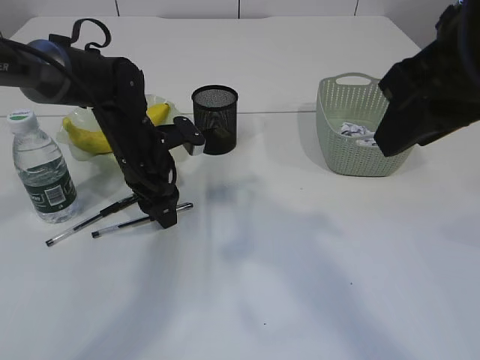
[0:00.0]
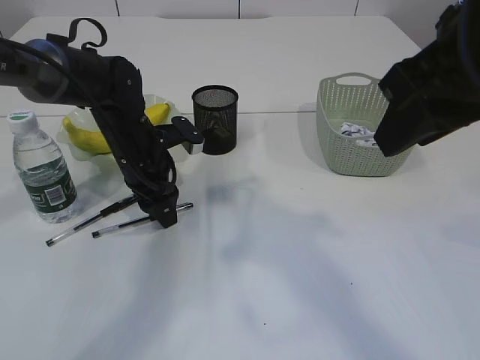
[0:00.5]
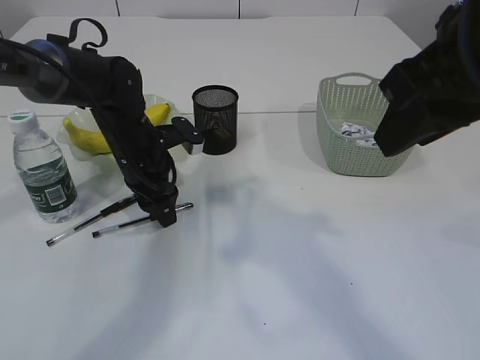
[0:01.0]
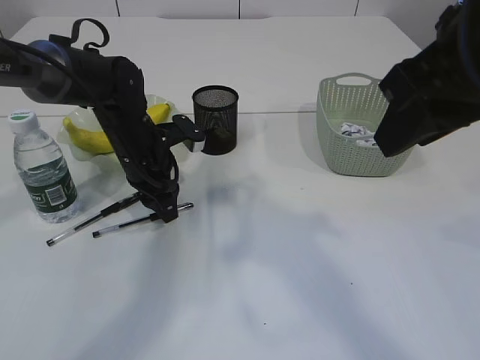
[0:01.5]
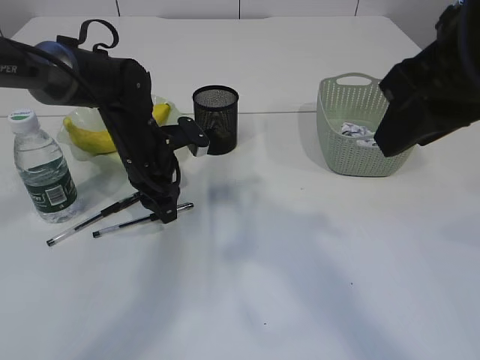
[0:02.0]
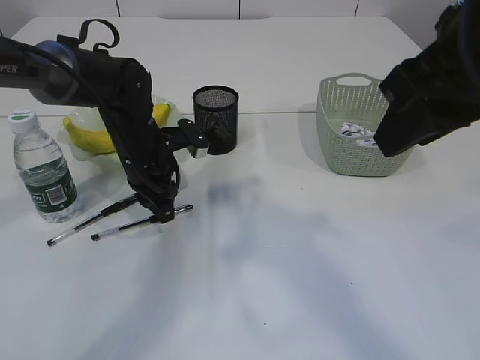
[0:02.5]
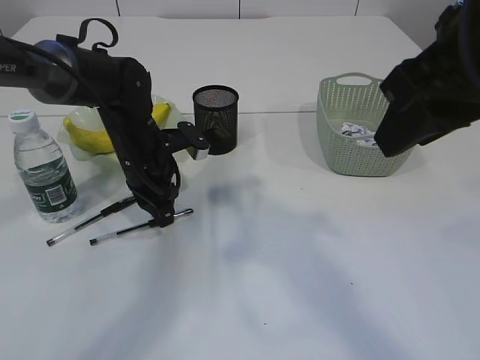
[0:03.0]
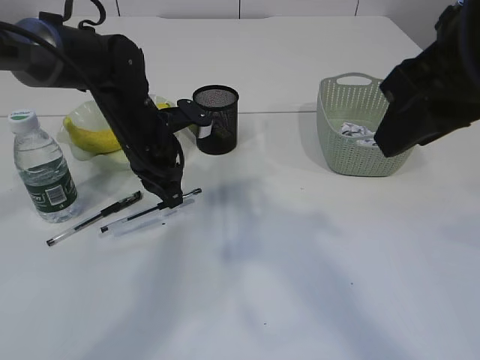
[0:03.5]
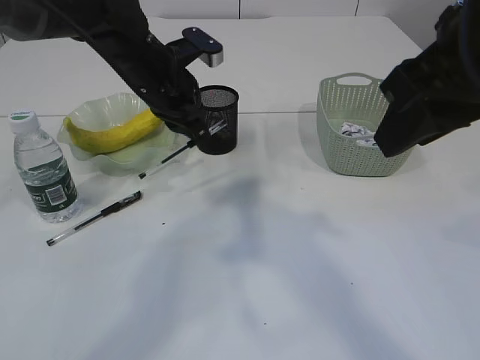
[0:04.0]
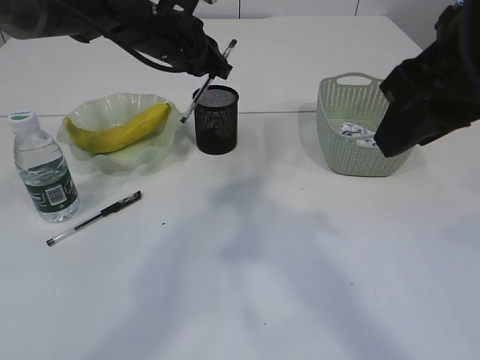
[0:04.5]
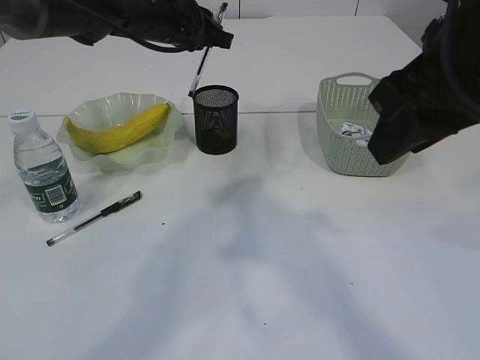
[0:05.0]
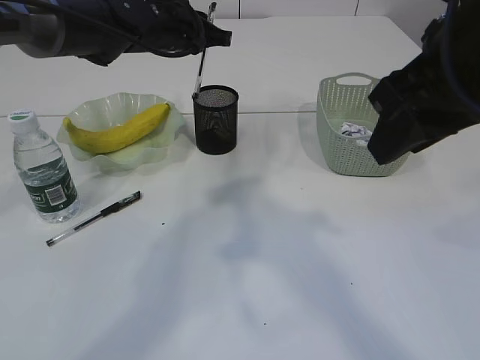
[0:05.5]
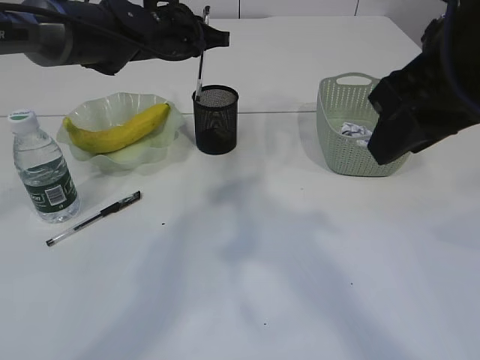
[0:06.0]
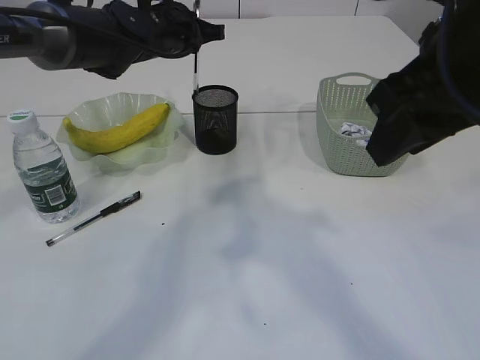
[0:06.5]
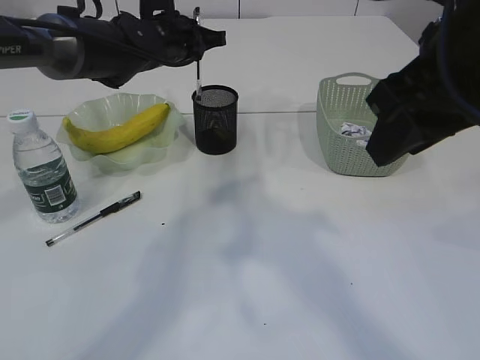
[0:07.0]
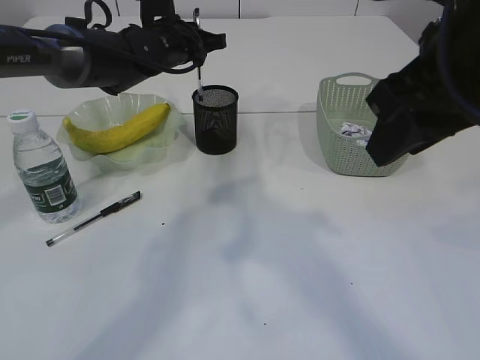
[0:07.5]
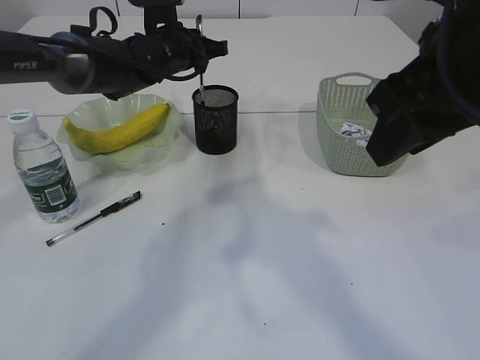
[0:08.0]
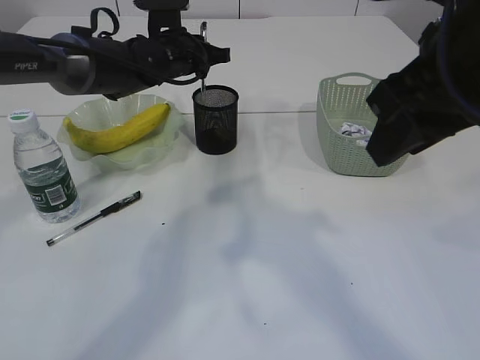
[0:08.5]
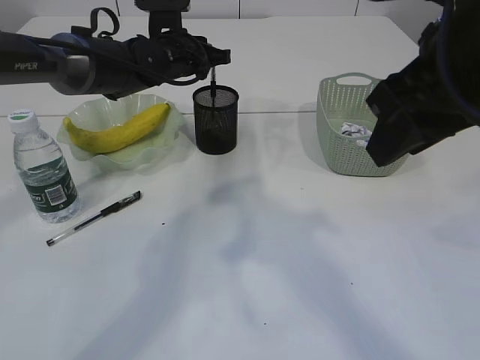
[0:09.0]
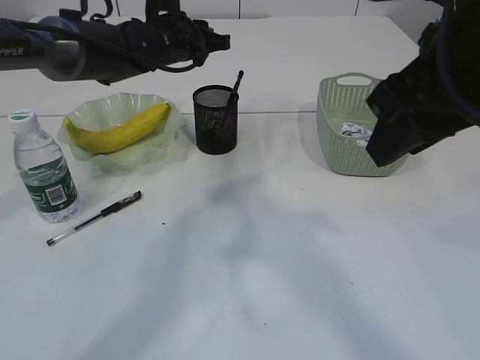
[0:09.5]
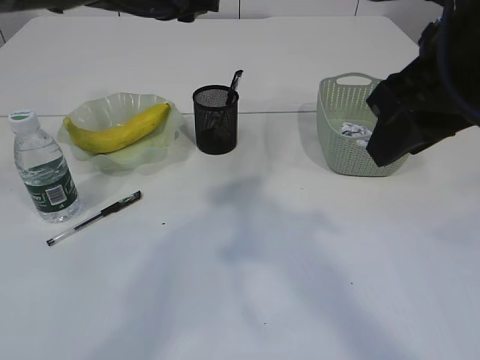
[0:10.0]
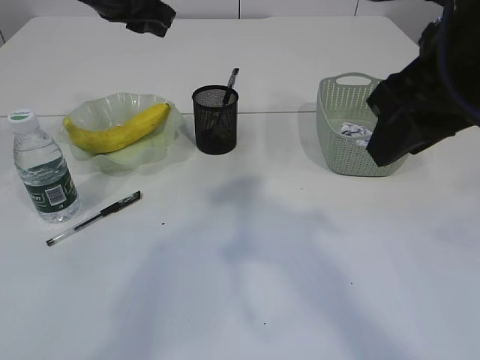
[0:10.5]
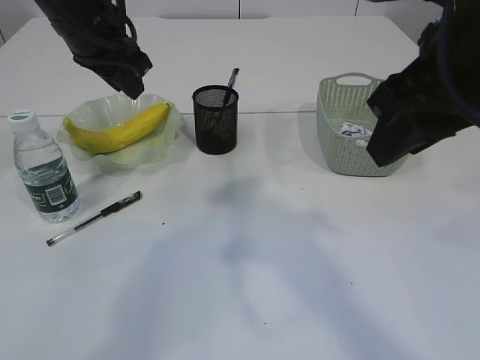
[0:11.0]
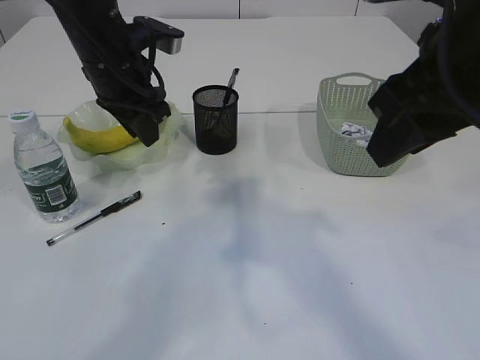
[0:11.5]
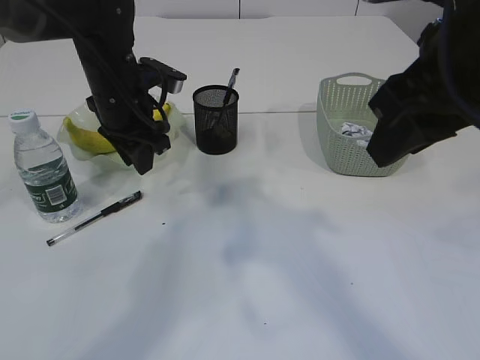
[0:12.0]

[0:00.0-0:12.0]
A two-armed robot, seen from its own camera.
Step, 0:00.0 to 0:03.5: Pick up the pen with left arm.
Step, 0:04.0 to 0:09.0: Place the pen into the pen holder.
0:00.0 to 0:02.0: Neither gripper changes place.
0:02.0 to 0:04.0: The left gripper moves upward, some 10 cm, and closes.
0:04.0 to 0:06.0: The left gripper goes some 5 cm forward.
0:06.0 to 0:08.0: The grippers stay close to where they were, moving slightly.
0:08.0 to 0:10.0: The left gripper is displaced upward by roughly 10 cm.
0:10.0 to 0:12.0: The left gripper moves downward and backward, approximately 10 cm.

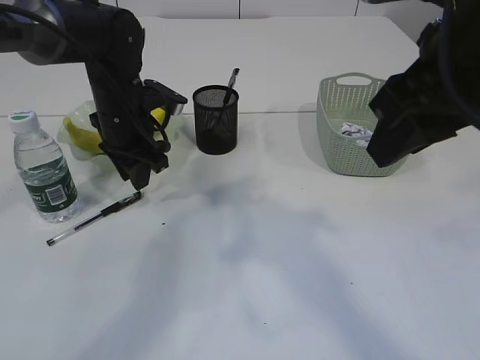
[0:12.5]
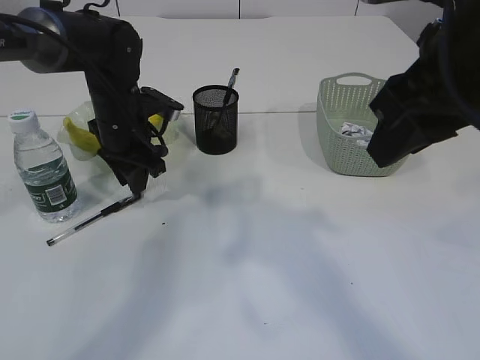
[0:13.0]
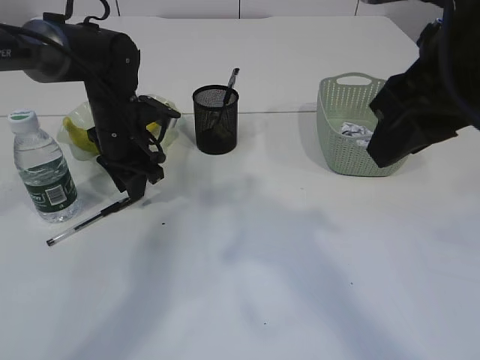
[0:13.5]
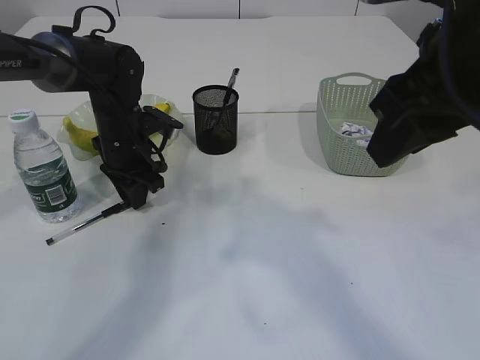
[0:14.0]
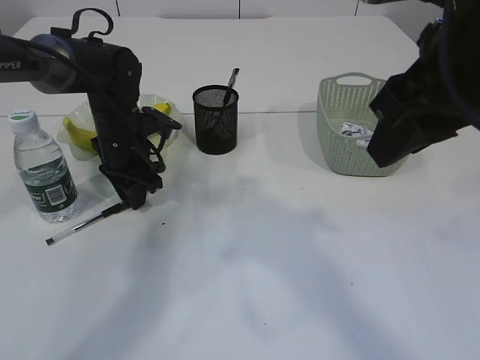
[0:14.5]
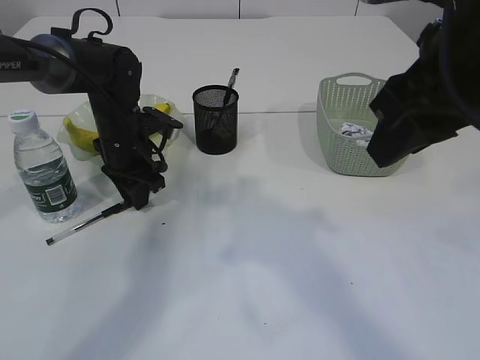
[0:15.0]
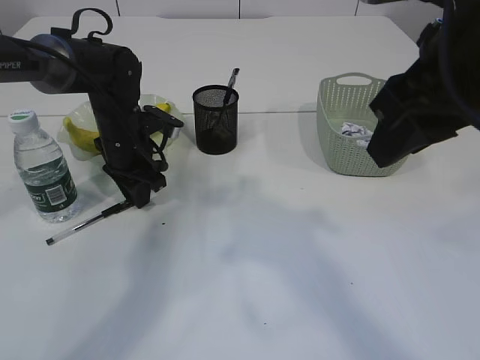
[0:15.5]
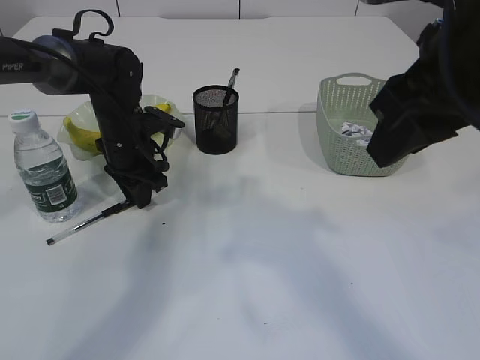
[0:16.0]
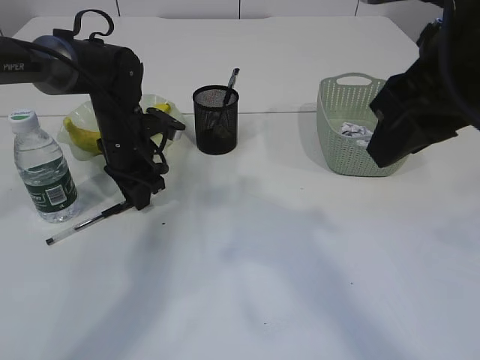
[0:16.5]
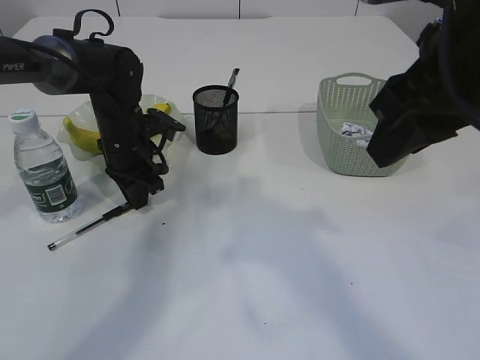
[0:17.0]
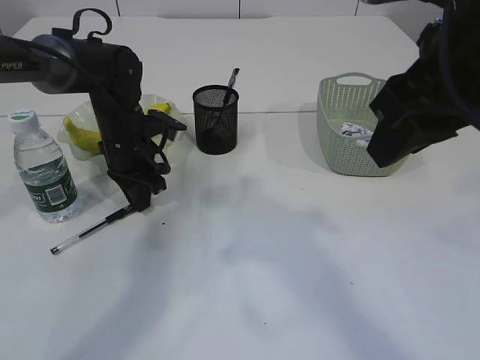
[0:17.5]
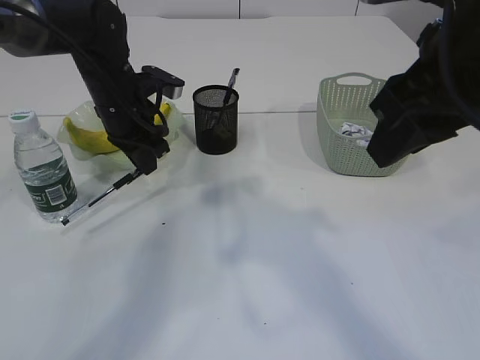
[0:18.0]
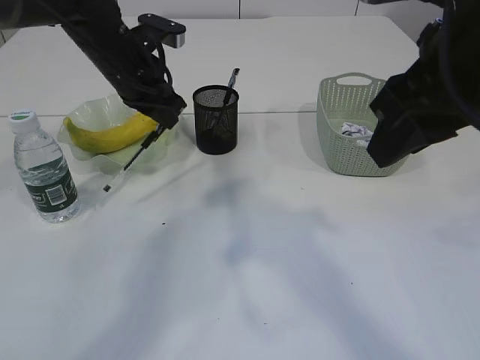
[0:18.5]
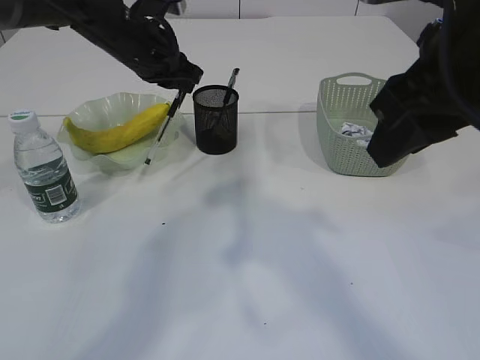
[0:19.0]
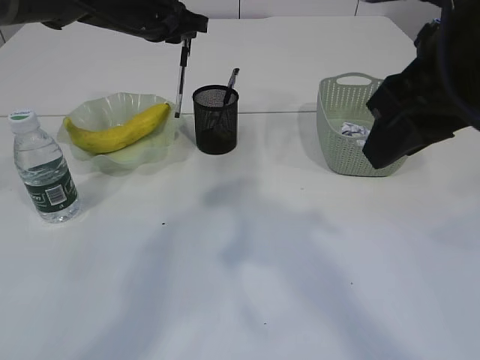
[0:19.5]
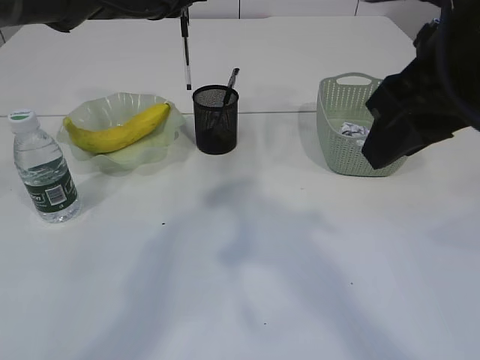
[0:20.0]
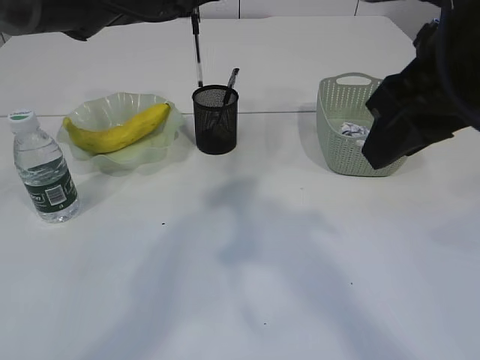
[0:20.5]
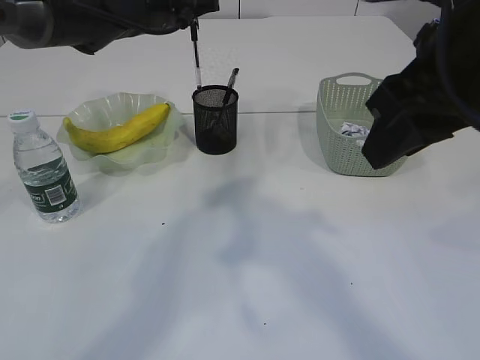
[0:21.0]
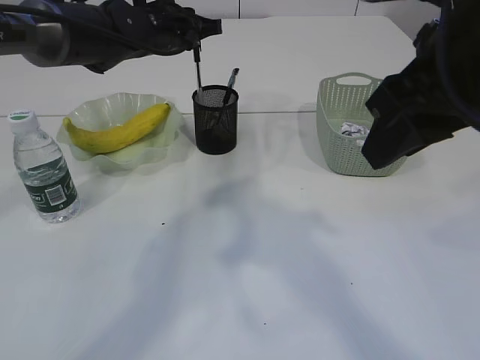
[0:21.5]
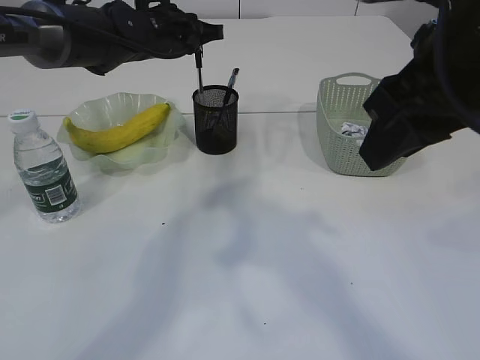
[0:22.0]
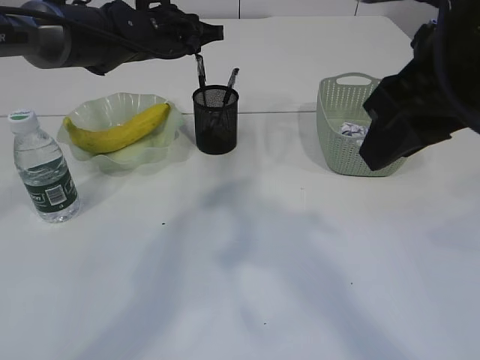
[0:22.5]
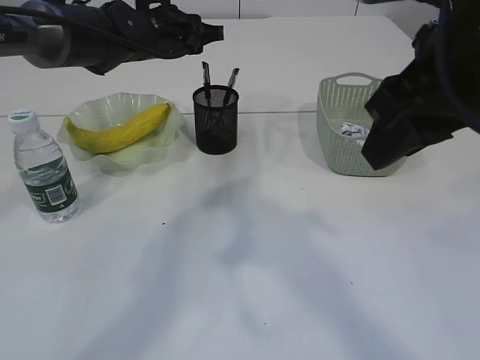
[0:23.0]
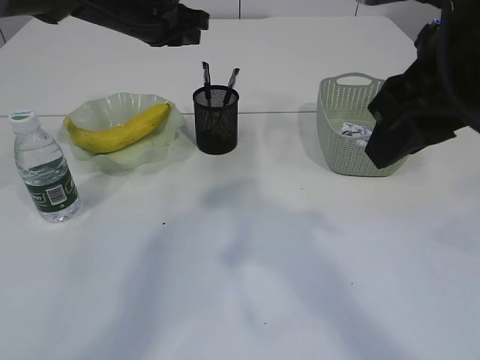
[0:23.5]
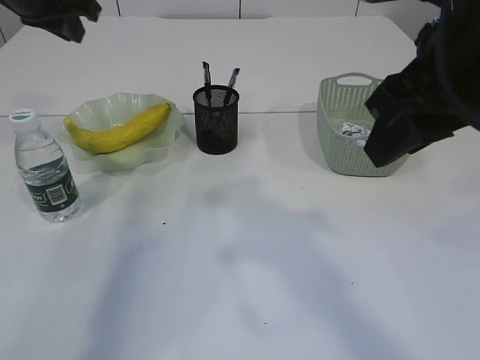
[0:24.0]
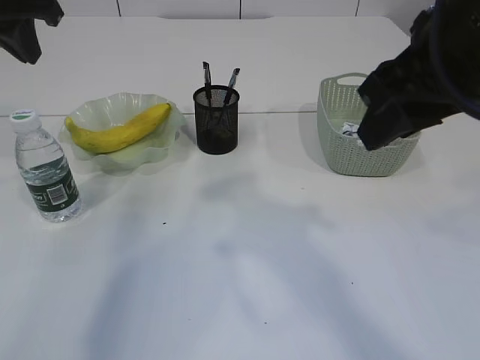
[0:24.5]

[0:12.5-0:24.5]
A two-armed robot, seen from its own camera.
Step, 0:12.5 to 0:18.0: Pick up the pen with left arm.
Step, 0:18.5 to 0:23.0: Place the pen into the pen holder.
0:12.5 to 0:14.5: The left gripper travels downward by roughly 5 cm.
0:14.5 to 0:16.5: Neither gripper changes place.
0:16.5 to 0:18.5: The left gripper heads upward, covering some 10 cm.
0:18.5 to 0:20.5: The left gripper goes about 5 cm upward.
0:20.5 to 0:22.5: The left gripper moves downward, some 5 cm.
0:22.5 to 0:24.5: The left gripper travels to the left, upward and backward by some 20 cm.

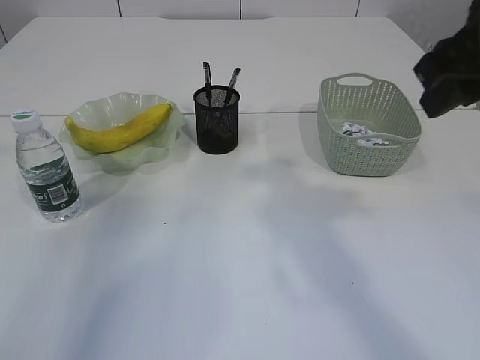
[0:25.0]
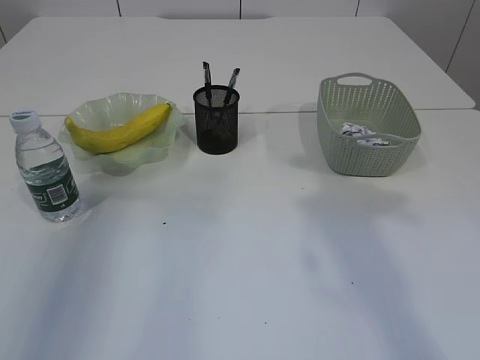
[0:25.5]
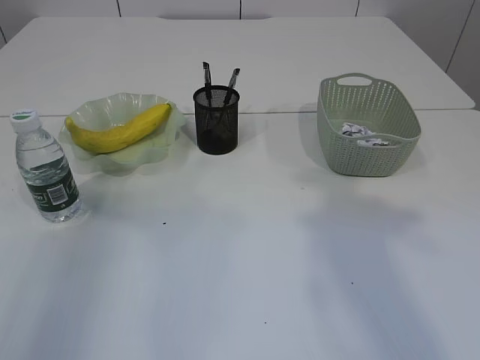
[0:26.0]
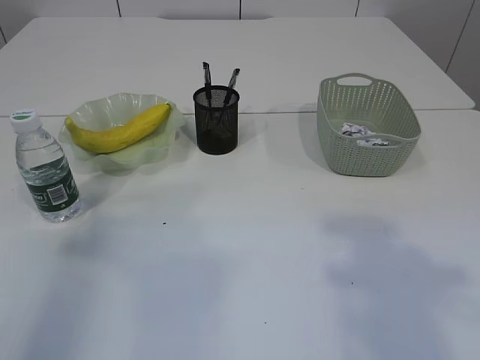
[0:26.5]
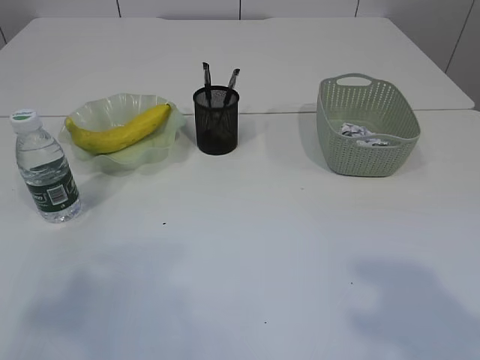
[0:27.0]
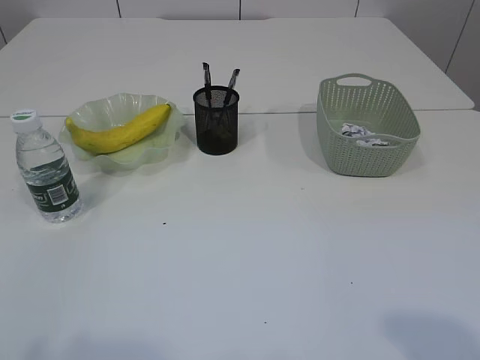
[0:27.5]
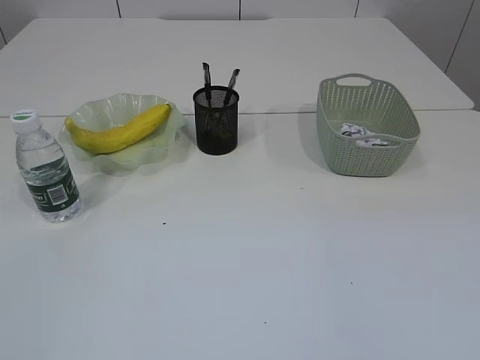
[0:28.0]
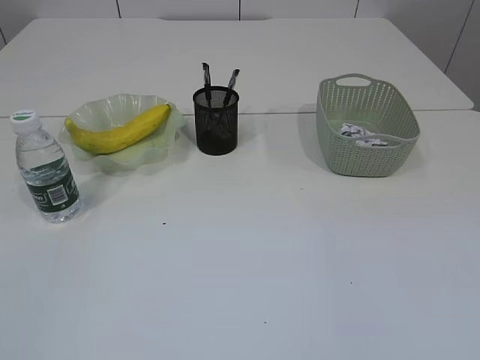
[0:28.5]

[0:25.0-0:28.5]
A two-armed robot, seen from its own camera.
0:25.0 to 0:27.0: The left gripper shifts some 30 cm backward, and opens up. Meanwhile the right gripper is displaced backward and to the right by approximately 20 cm.
0:27.0 to 0:28.5: The left gripper moves backward, approximately 15 cm.
